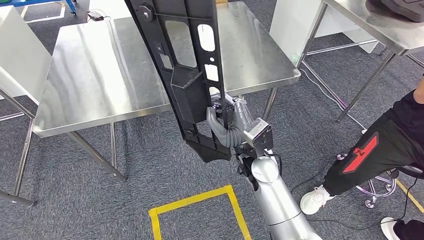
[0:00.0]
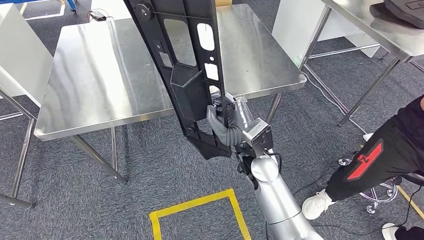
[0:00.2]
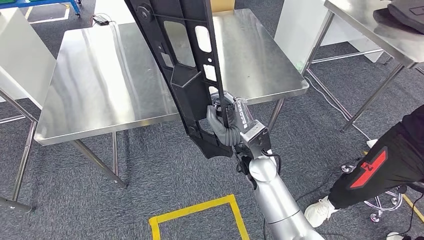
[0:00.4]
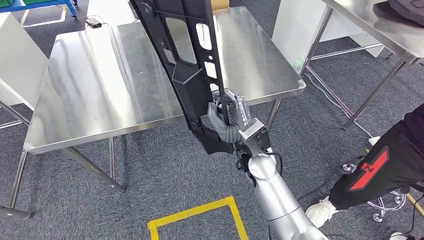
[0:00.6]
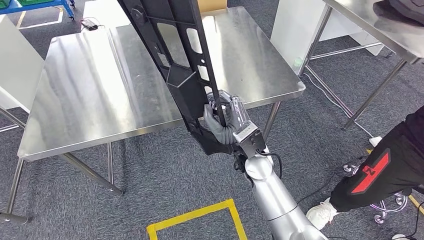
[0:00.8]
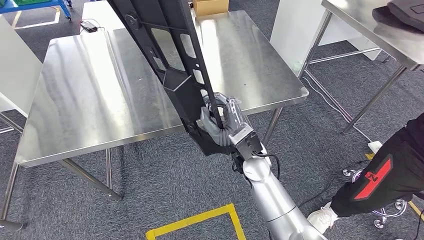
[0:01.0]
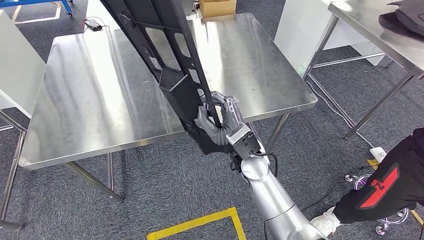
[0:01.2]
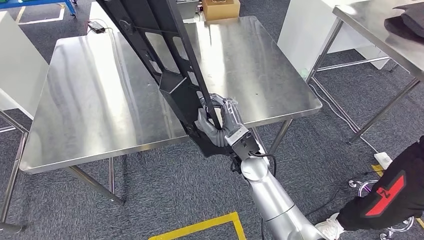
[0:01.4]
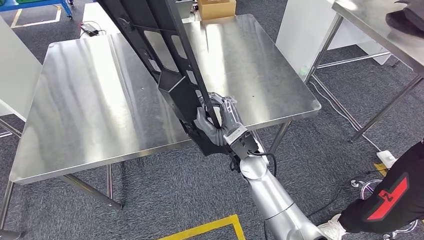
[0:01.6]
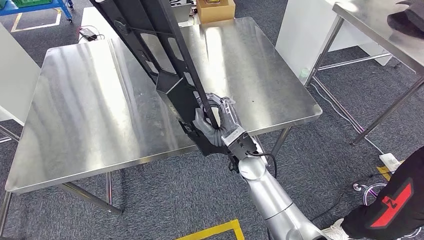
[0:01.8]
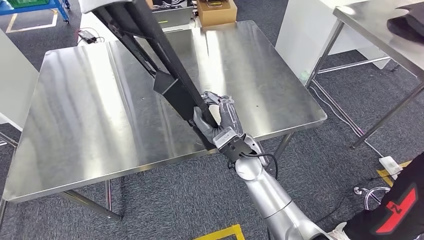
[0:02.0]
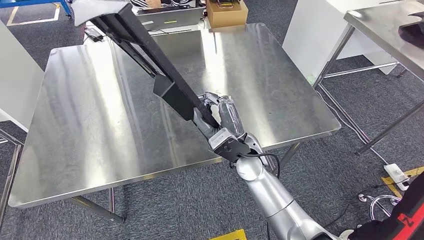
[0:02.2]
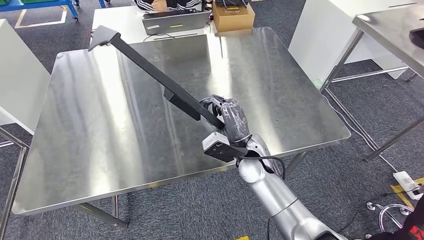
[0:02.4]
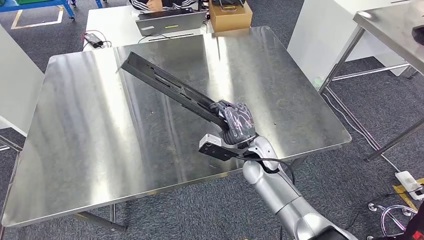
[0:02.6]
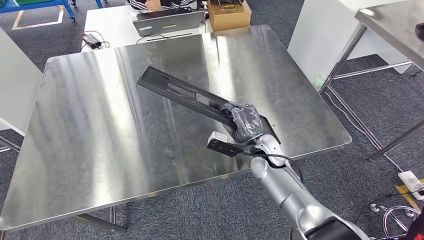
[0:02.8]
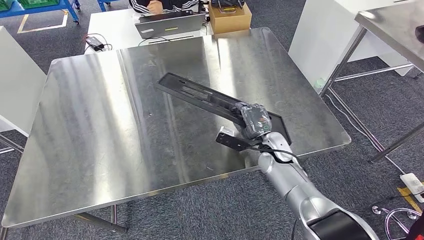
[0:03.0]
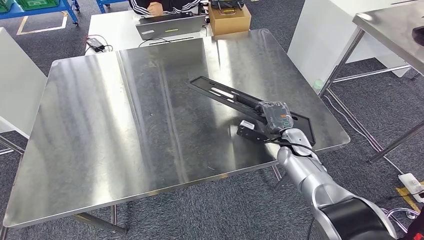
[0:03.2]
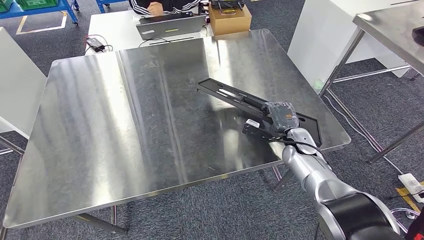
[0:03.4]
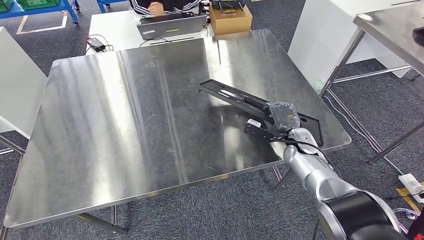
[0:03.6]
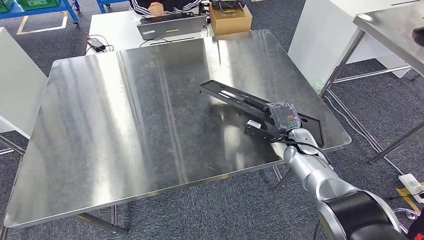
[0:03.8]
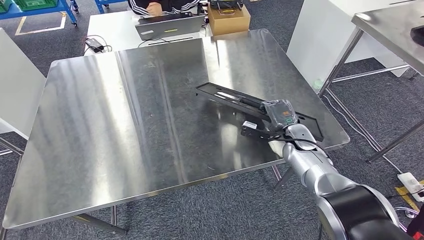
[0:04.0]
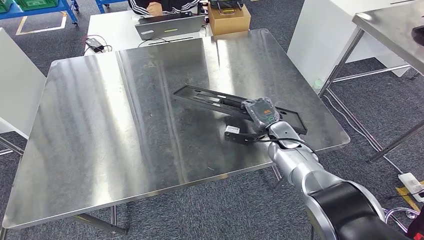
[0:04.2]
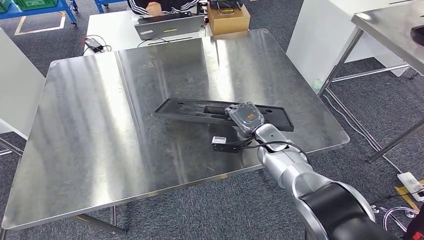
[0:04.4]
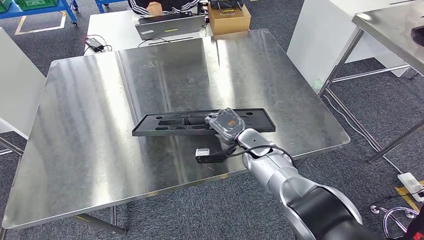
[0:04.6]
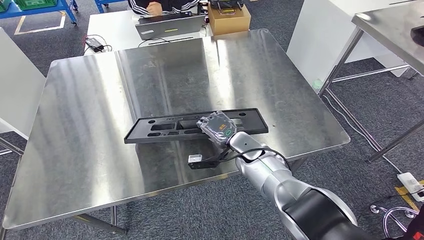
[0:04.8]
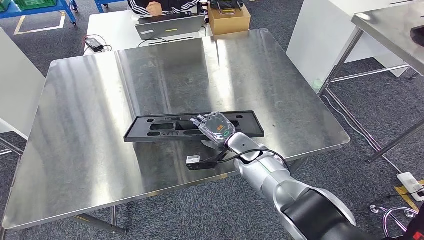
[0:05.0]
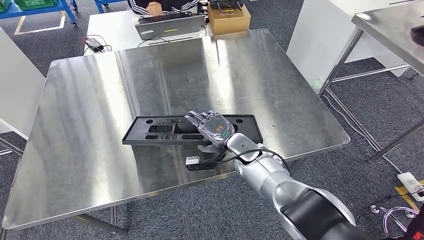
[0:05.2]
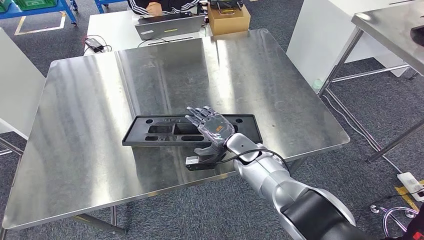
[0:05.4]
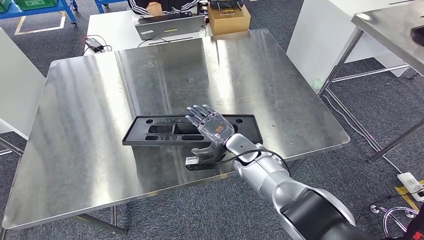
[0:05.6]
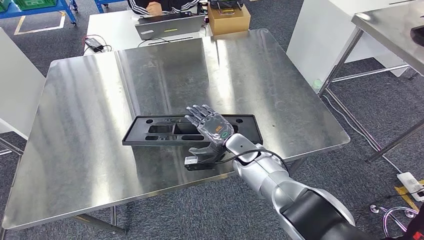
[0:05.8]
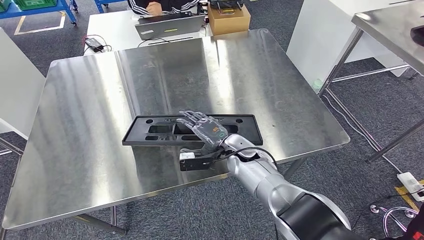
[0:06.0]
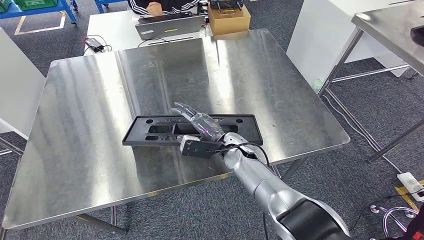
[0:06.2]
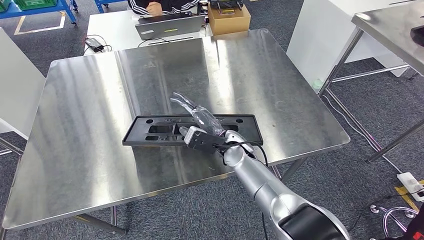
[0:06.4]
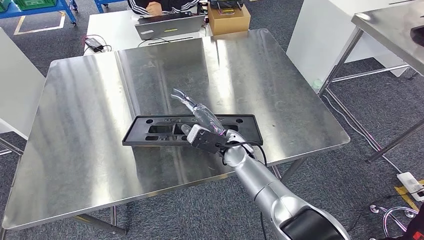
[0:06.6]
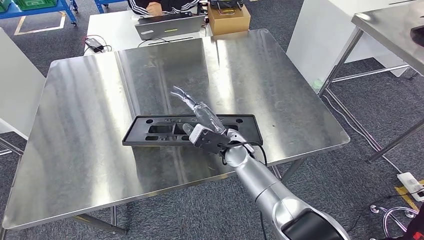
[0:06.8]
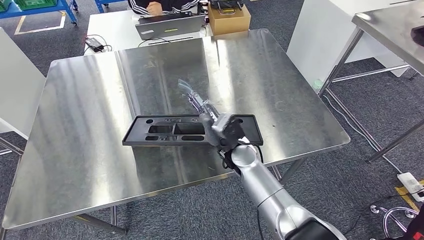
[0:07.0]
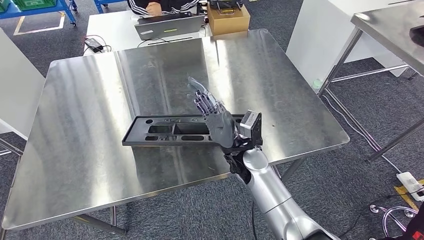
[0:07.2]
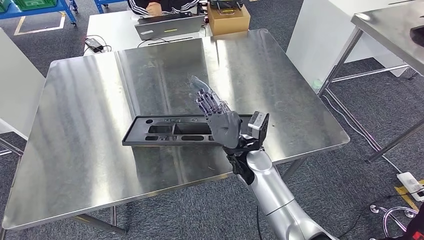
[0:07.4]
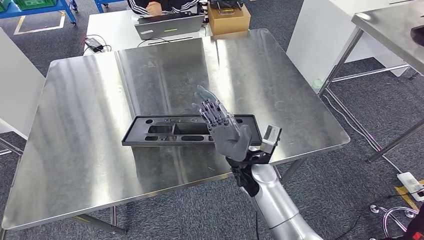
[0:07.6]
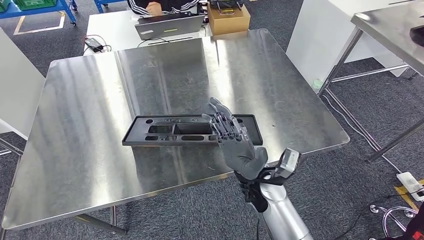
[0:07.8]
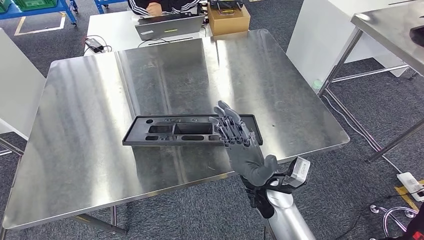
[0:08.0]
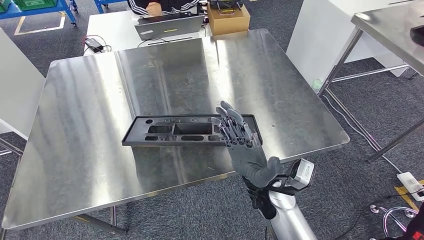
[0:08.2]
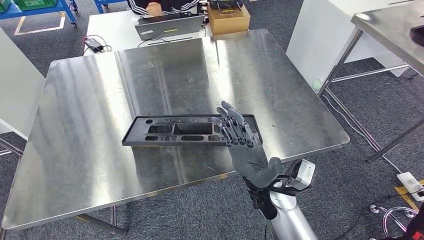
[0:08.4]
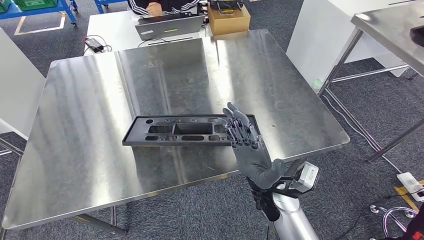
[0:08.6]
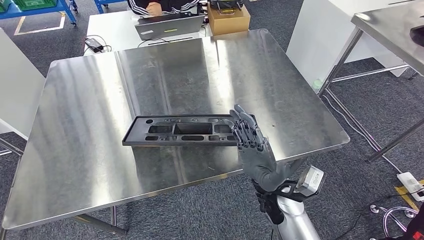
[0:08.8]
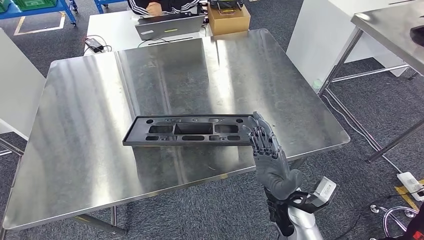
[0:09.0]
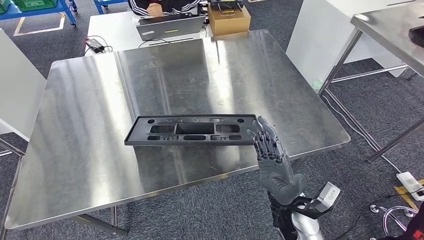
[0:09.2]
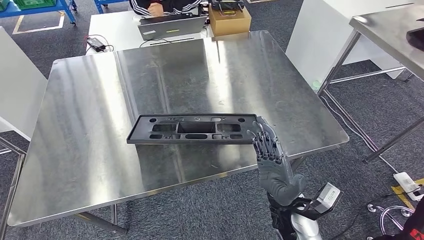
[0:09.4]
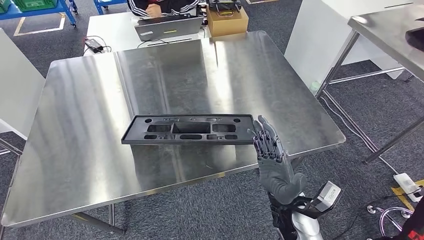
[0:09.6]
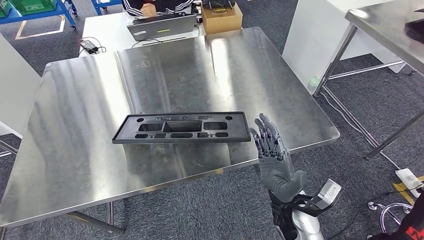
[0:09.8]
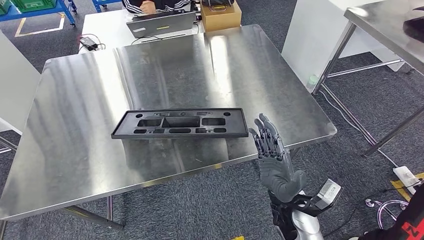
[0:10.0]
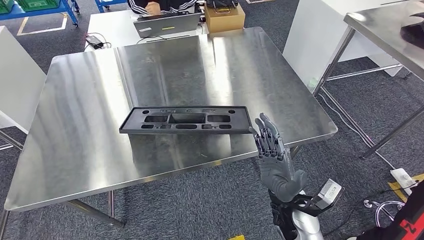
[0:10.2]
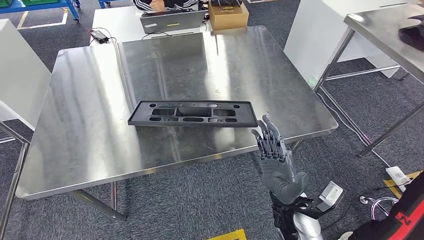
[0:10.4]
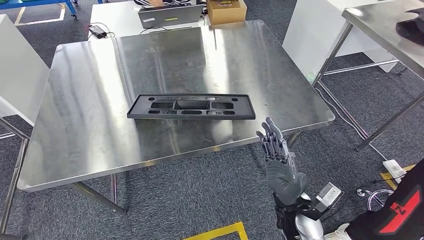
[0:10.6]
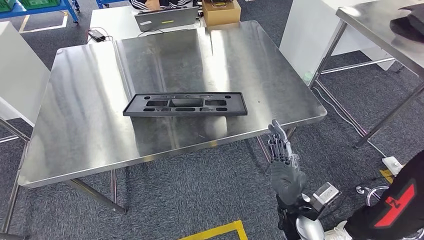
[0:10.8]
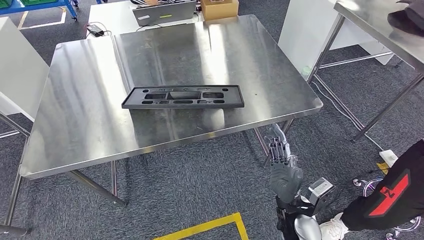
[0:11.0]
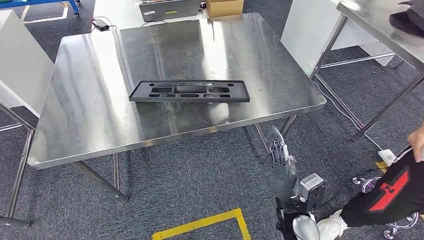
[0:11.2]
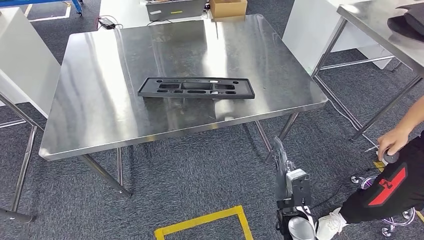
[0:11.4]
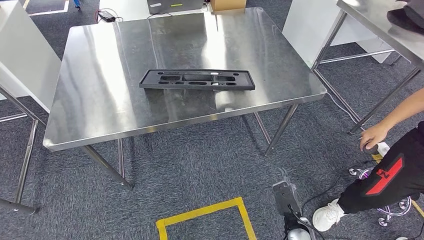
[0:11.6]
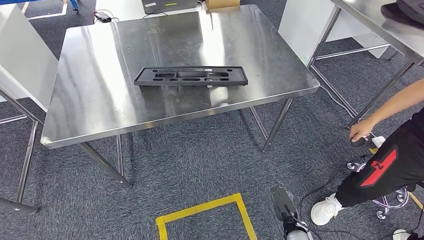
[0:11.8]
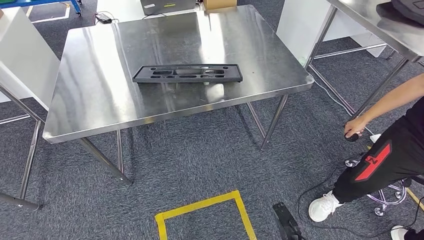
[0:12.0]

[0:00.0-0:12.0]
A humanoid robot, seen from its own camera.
Step, 0:00.2 to 0:11.8: Insert the large material into the corresponding slot on the workbench.
0:03.0 to 0:04.4: The right hand travels to the right and back again, some 10 cm each way.
0:04.4 to 0:06.0: The right hand is displaced to the left by roughly 10 cm.
0:06.0 to 0:07.6: The right hand travels backward and upward by approximately 10 cm.
0:07.6 to 0:09.0: The right hand moves backward and to the right, some 10 cm.

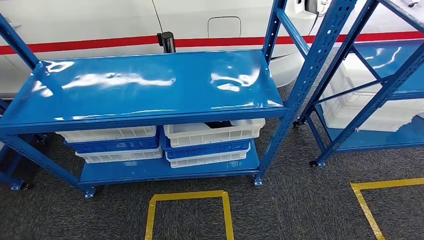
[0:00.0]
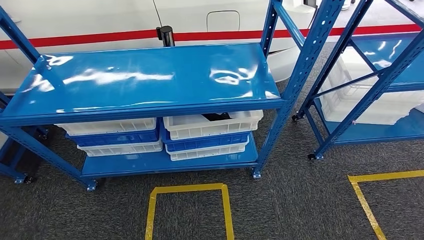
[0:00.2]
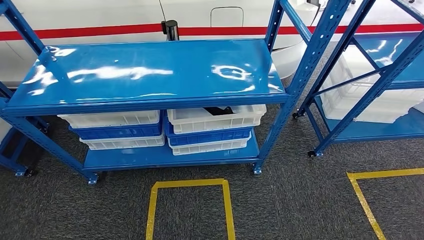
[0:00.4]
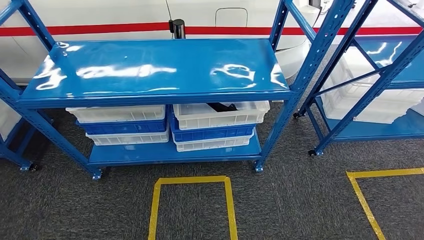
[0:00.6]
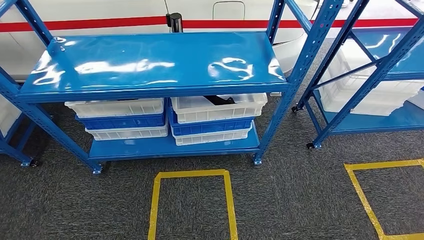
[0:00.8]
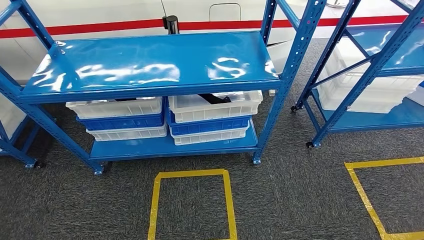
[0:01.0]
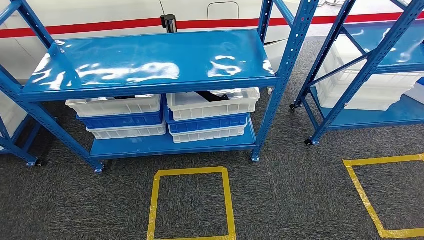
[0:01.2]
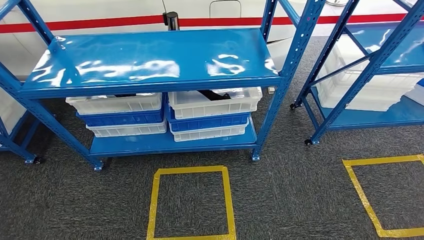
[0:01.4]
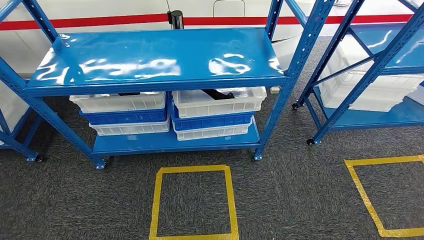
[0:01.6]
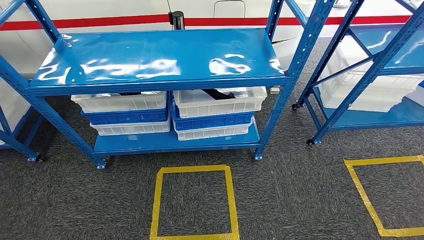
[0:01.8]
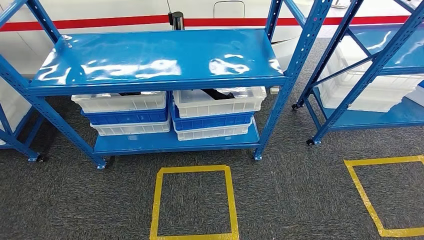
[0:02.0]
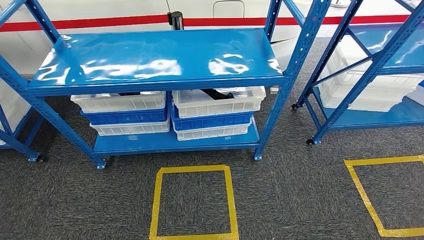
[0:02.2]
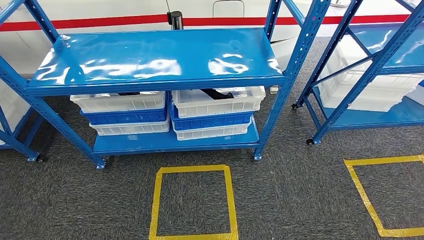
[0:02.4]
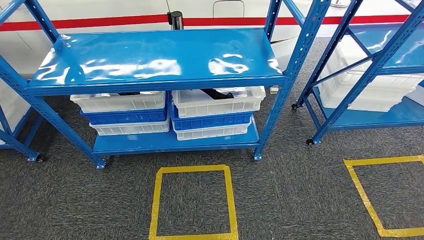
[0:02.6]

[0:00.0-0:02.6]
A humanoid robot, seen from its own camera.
Step, 0:00.0 to 0:02.6: Move to the initial position of the shelf.
